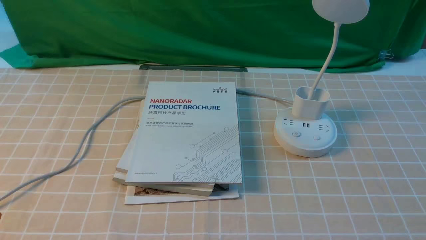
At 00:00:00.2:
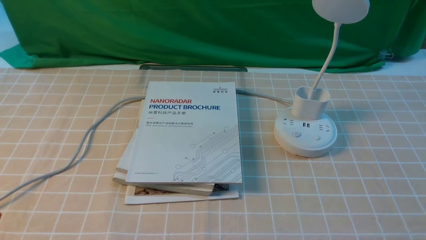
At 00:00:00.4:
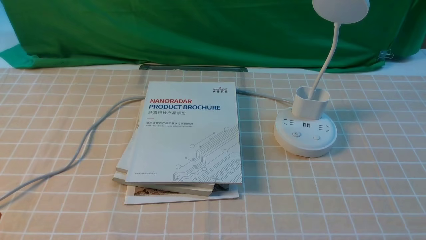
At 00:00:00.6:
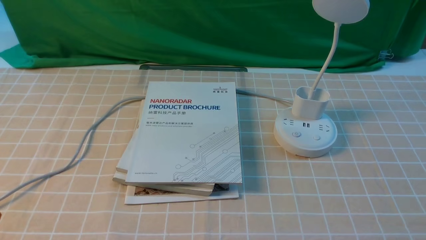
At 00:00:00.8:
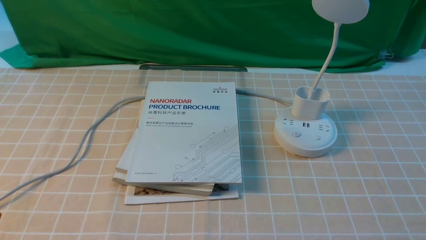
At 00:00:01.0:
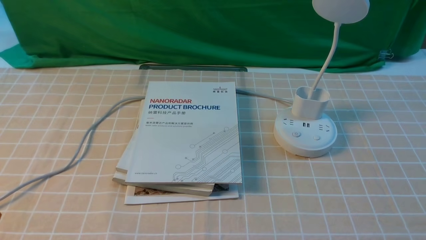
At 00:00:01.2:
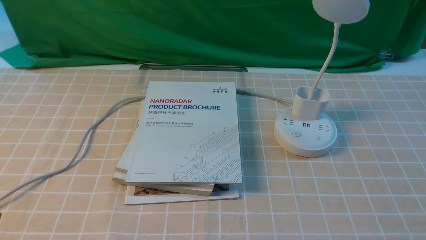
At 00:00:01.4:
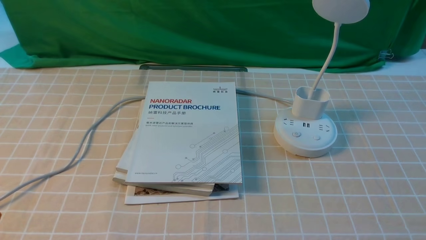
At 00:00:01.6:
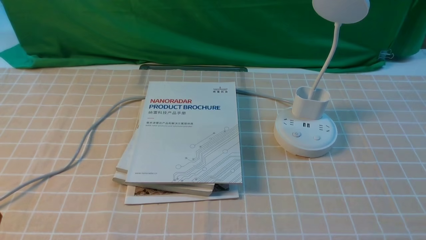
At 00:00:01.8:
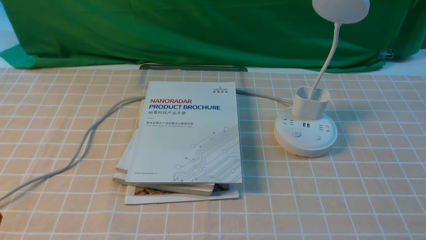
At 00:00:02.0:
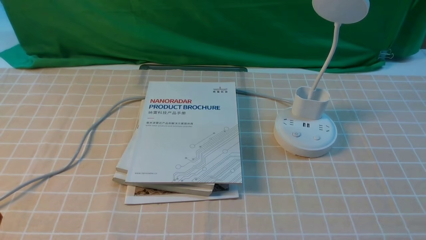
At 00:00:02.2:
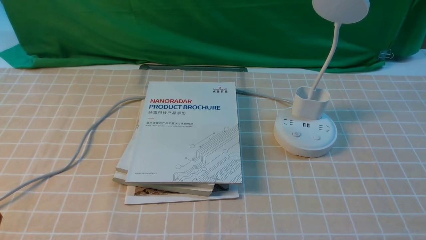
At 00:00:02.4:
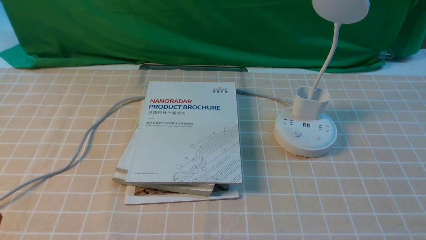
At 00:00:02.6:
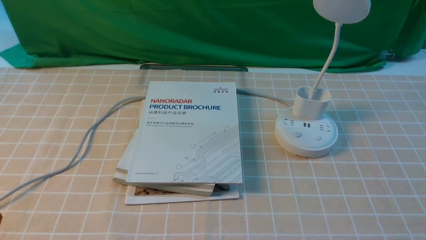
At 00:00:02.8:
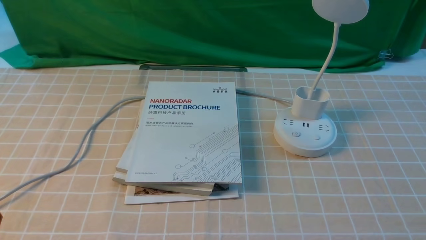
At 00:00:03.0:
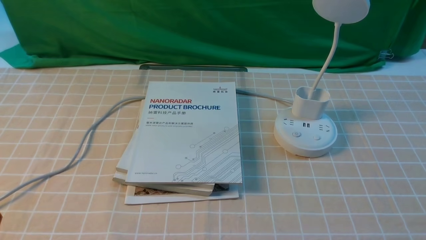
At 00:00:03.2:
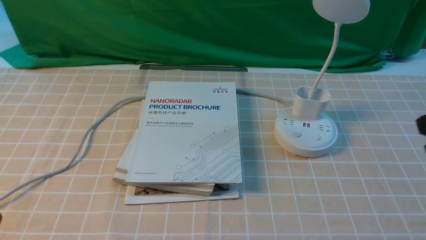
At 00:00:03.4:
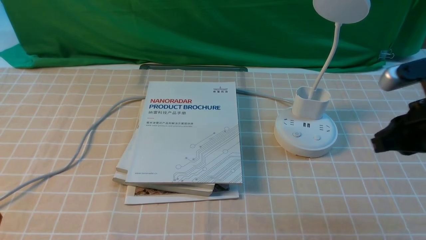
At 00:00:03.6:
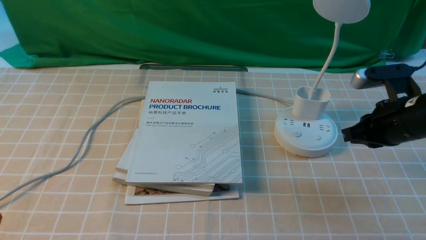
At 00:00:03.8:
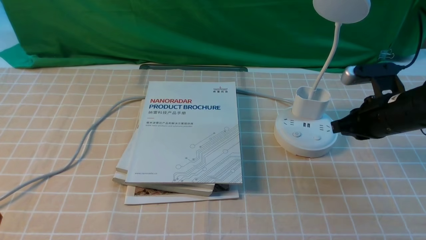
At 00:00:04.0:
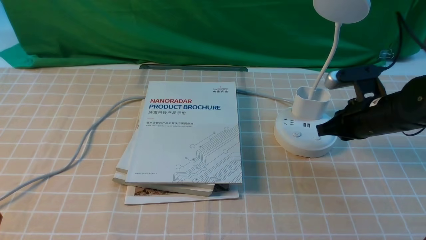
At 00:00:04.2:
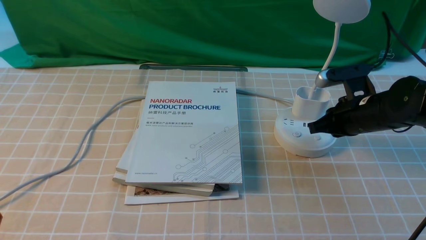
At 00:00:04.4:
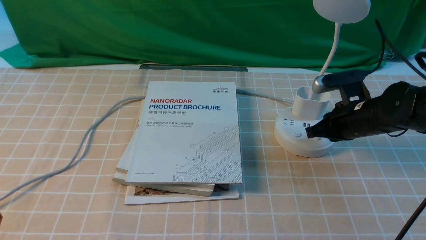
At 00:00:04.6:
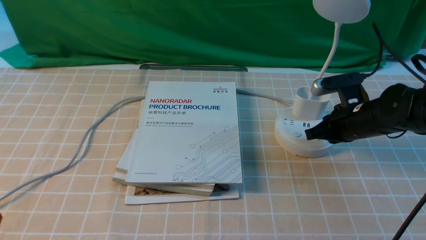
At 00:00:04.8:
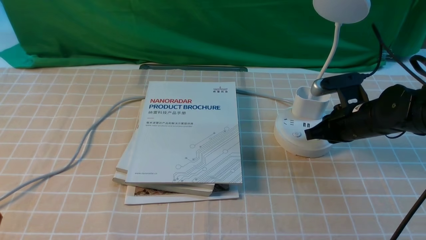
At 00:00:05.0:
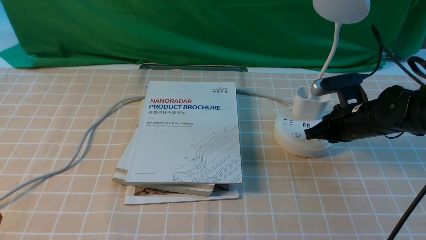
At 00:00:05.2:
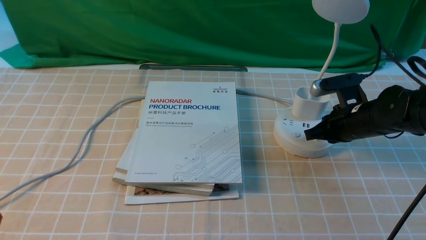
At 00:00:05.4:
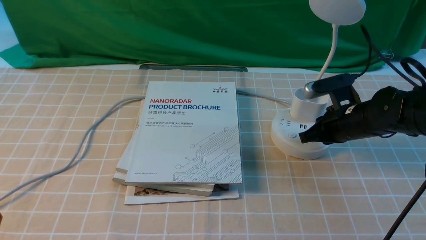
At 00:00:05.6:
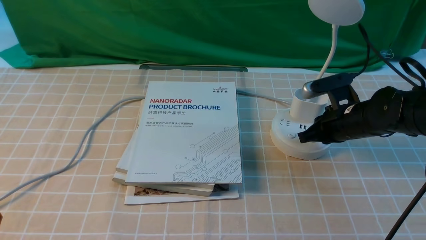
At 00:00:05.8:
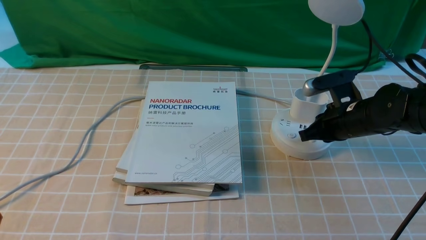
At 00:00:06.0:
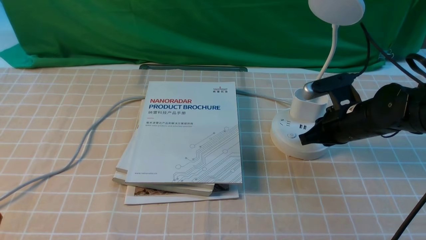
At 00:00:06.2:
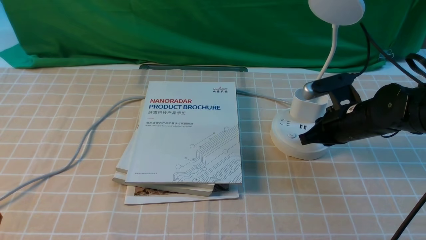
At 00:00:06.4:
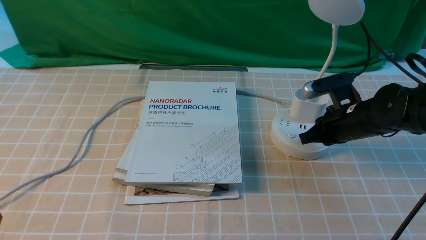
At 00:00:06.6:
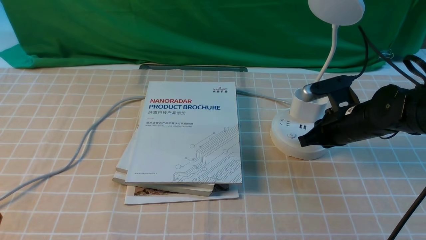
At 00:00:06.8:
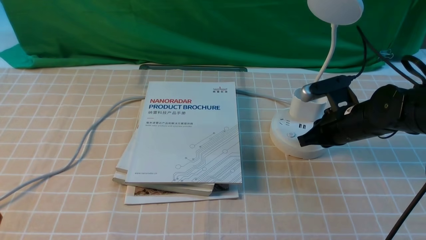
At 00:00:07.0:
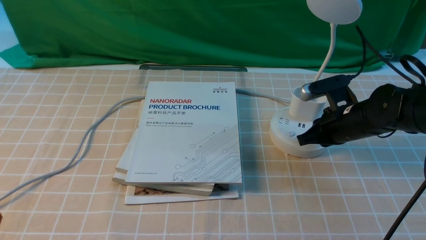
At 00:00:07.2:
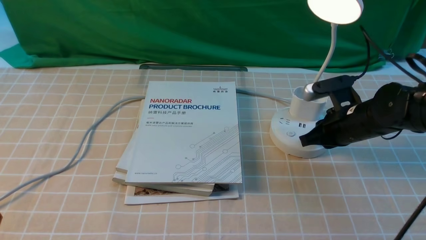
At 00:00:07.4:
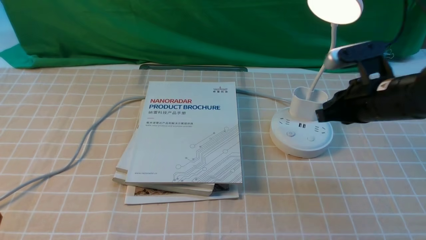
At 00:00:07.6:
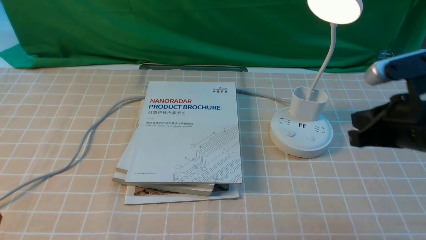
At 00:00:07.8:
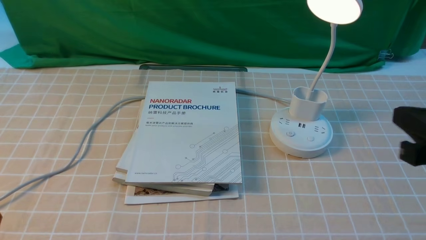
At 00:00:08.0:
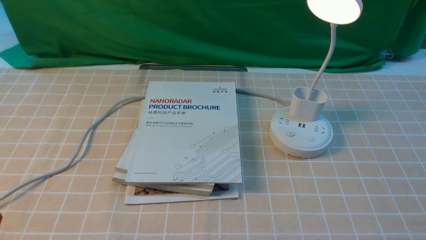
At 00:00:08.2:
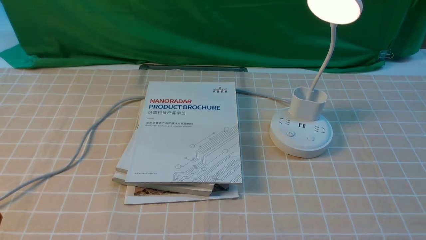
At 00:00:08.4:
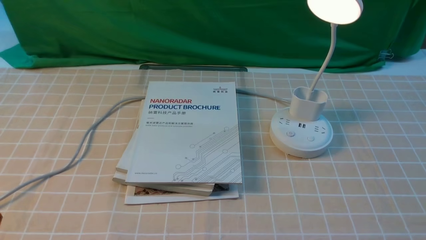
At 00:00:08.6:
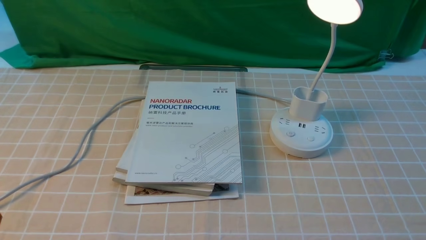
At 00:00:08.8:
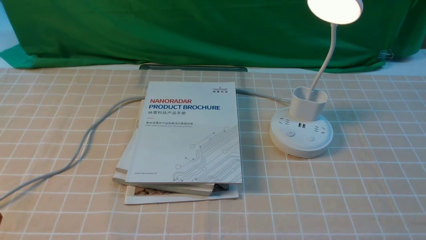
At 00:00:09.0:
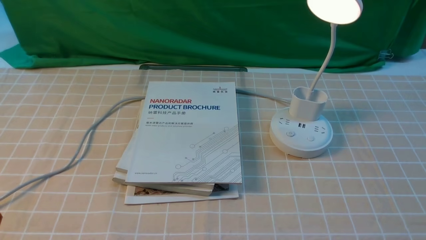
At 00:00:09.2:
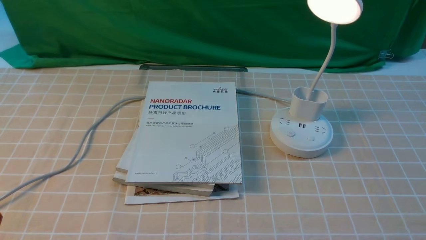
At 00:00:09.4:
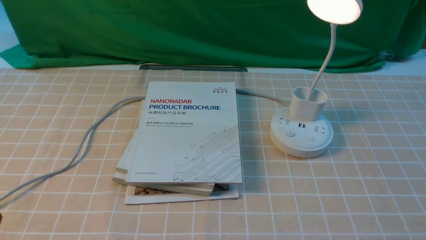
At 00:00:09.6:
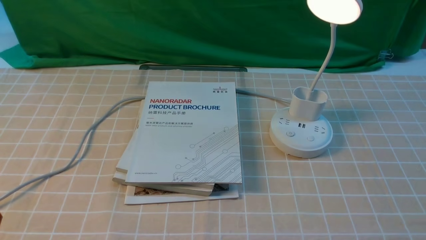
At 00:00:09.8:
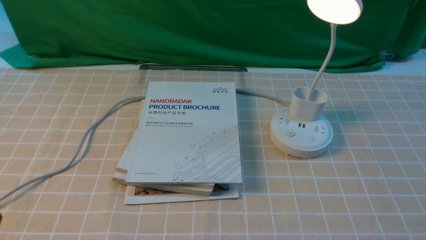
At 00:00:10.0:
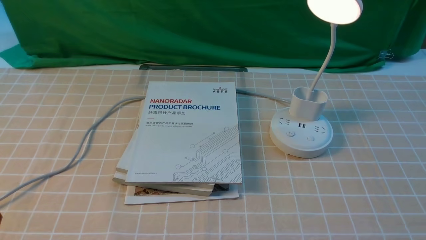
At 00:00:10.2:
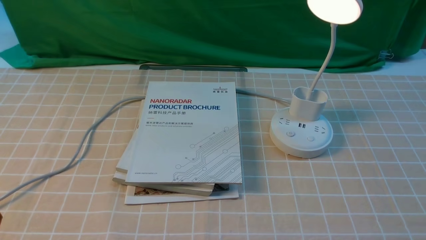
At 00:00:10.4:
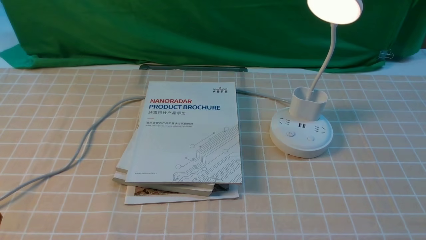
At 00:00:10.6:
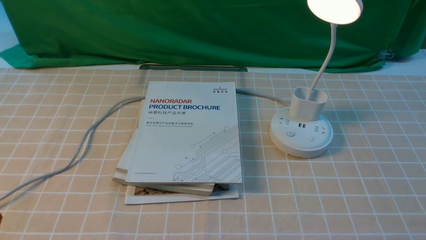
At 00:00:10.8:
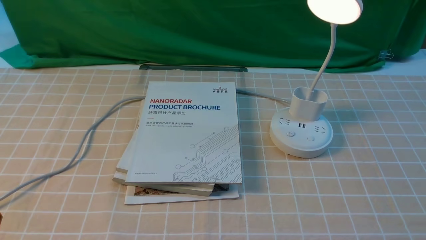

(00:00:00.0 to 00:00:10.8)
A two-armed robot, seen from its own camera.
Step, 00:00:00.0 - 00:00:07.4: use the right arm to press the button switch on the lamp holder.
00:00:03.0 - 00:00:04.6: The right gripper is displaced forward and downward by some 30 cm.
00:00:04.6 - 00:00:06.2: There are only small adjustments of the grippers.
00:00:06.2 - 00:00:07.8: The right gripper travels backward and upward by some 20 cm.
00:00:07.8 - 00:00:09.2: The right gripper travels backward, downward and to the right by about 15 cm.
